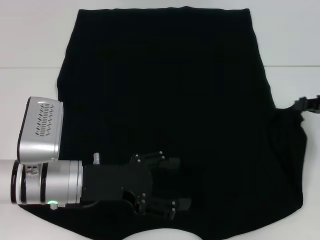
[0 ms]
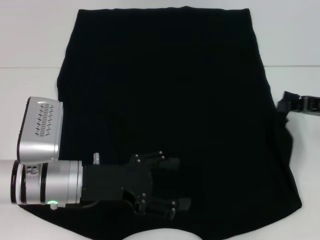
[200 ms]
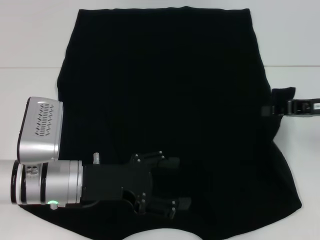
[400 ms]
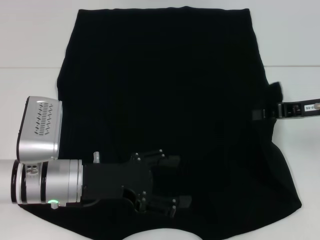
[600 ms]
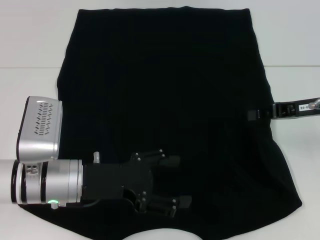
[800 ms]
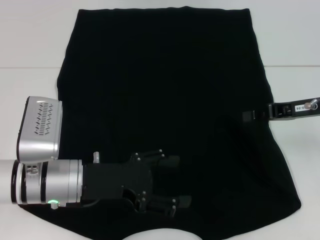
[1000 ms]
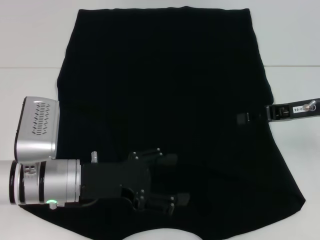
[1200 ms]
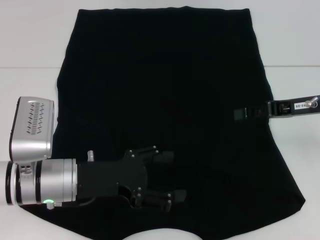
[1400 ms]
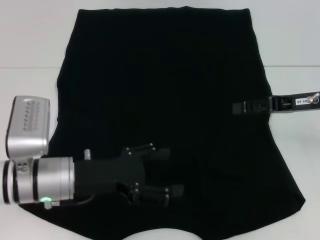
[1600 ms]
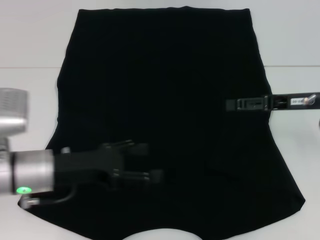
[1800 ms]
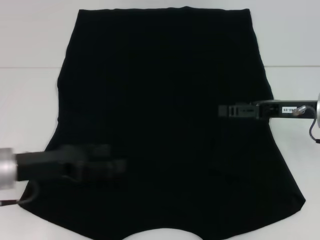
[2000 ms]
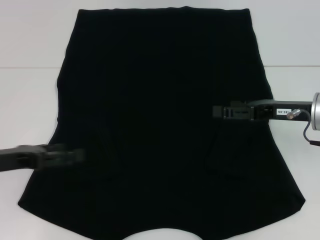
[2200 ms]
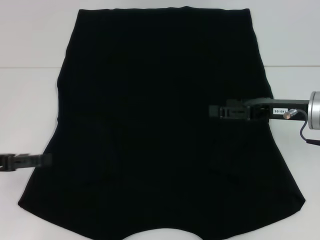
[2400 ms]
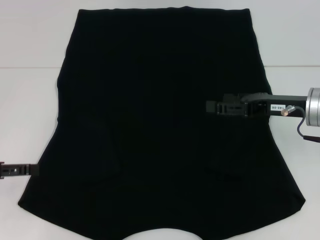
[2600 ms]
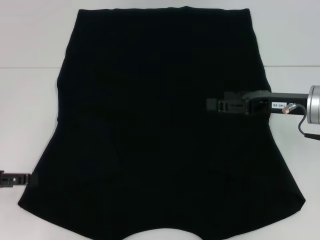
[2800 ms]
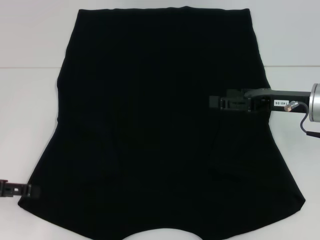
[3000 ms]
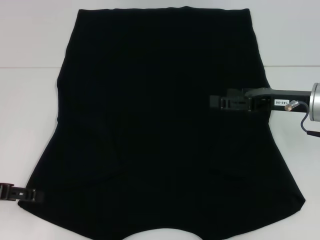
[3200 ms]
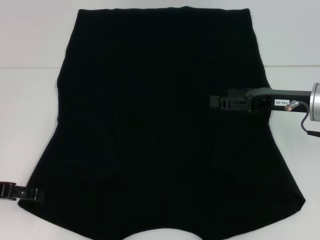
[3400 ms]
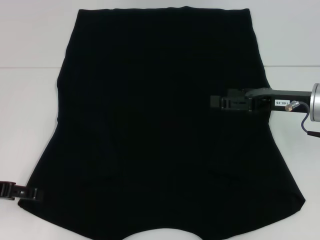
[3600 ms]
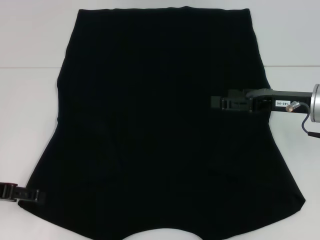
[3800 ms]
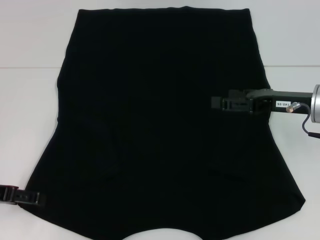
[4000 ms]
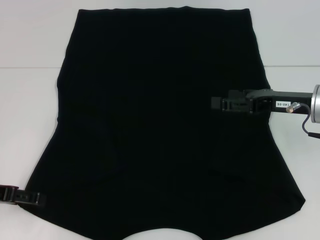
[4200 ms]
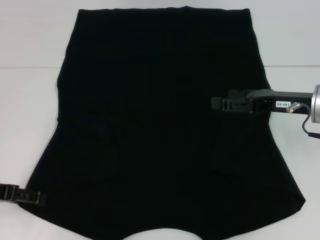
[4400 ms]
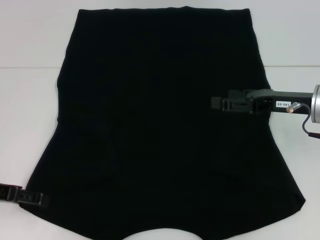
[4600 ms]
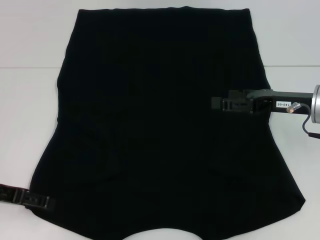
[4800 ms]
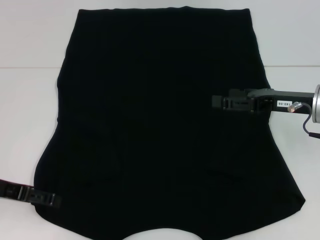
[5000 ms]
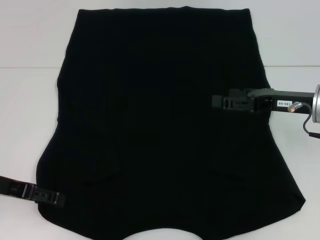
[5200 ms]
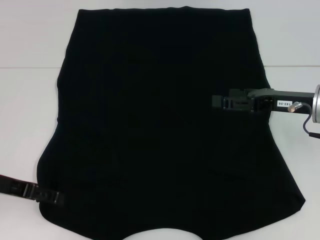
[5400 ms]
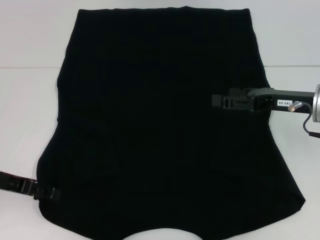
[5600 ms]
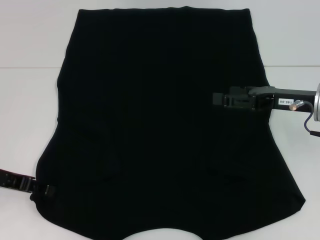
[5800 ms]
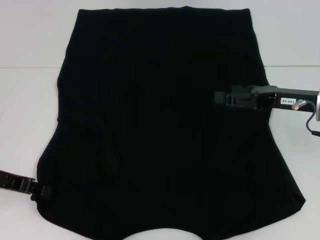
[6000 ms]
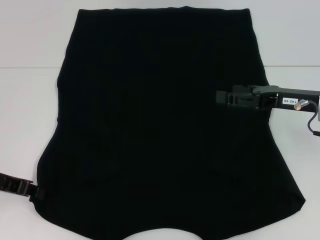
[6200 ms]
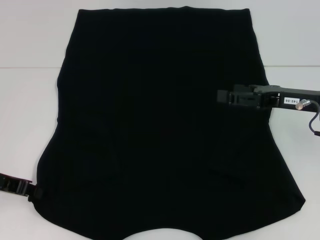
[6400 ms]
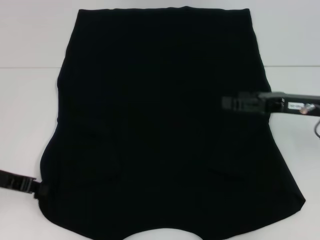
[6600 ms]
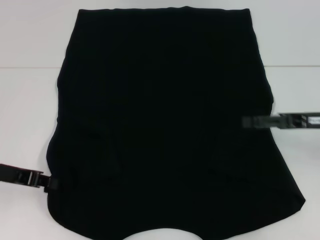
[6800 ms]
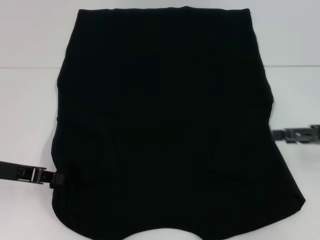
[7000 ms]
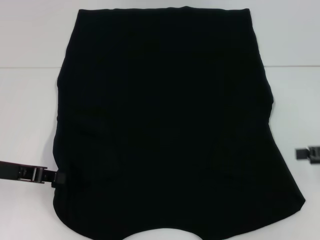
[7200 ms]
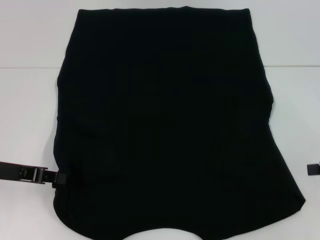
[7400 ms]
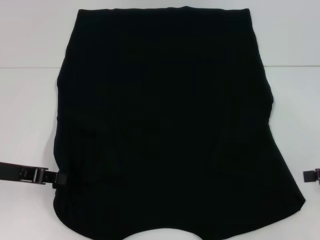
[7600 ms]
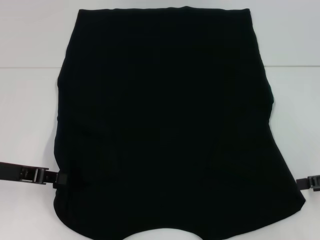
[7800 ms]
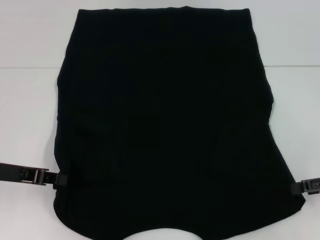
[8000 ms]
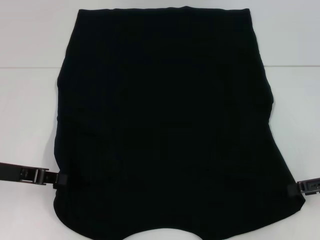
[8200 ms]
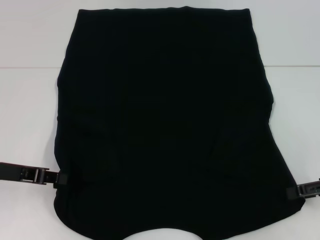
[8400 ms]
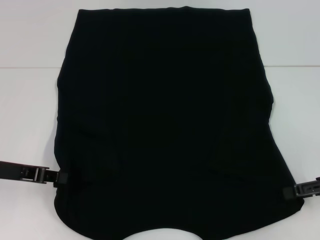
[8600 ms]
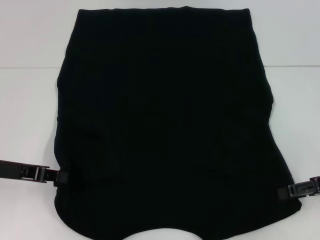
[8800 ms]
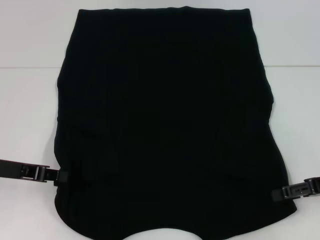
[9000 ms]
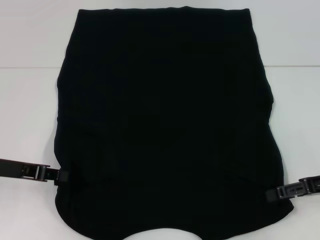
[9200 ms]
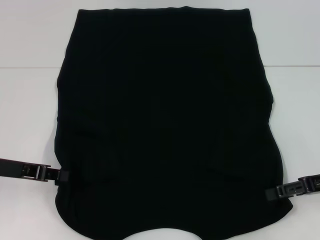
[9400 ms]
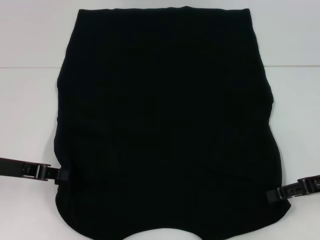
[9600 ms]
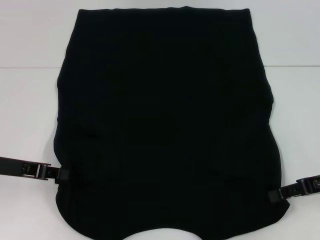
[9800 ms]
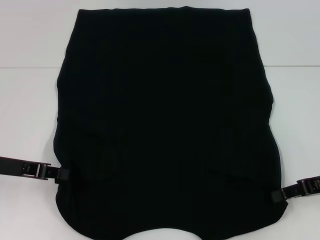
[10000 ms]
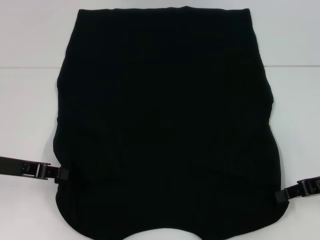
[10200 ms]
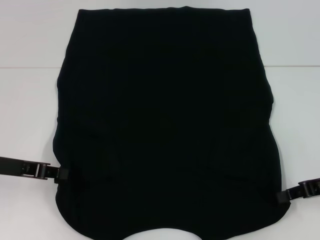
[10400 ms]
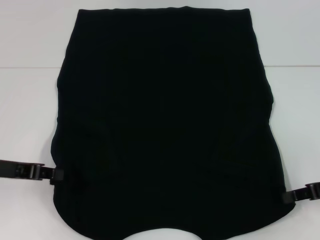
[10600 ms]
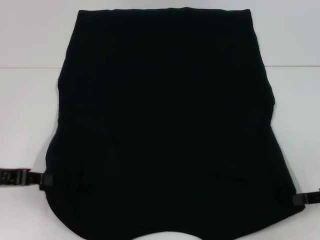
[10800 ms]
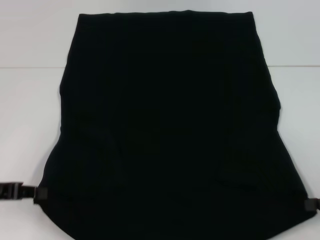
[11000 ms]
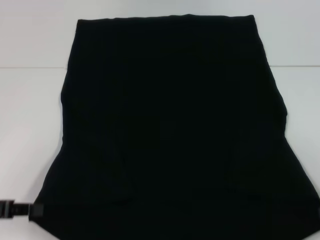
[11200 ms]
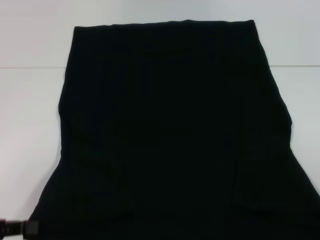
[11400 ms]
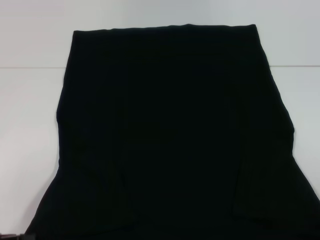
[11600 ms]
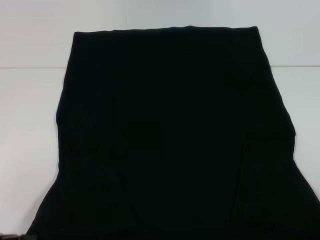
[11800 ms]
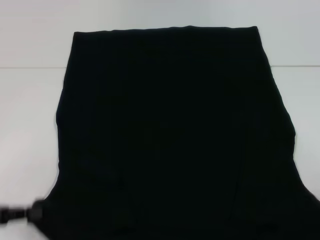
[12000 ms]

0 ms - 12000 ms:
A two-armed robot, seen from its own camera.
Step, 1800 ms - 6400 ms: Grab the bottom left corner with your left hand.
Step, 6600 ms - 10400 ms: Grab the bottom right corner with your right hand.
0 ms - 1600 ms: The right gripper goes about 10 cm to the left, and opens.
1600 ms - 3000 ms: The left gripper moves to the left, approximately 15 cm. Meanwhile the right gripper opens.
3000 ms - 4400 ms: The grippers move only a little.
4400 ms - 6000 ms: The left gripper closes up.
6000 ms - 7600 ms: The left gripper closes its fingers. The right gripper goes some 15 cm to the right and backward.
7600 ms - 9000 ms: The right gripper shifts about 5 cm to the left.
9000 ms - 10400 ms: The right gripper closes its fingers.
10400 ms - 12000 ms: The right gripper moves backward and to the right, approximately 15 cm; the left gripper goes some 10 cm backward.

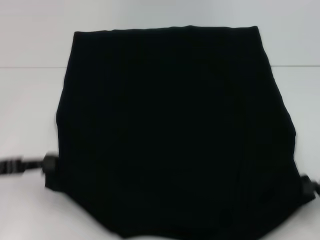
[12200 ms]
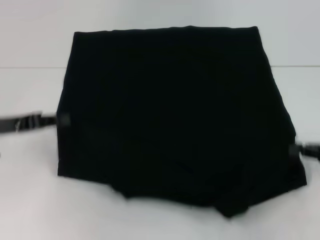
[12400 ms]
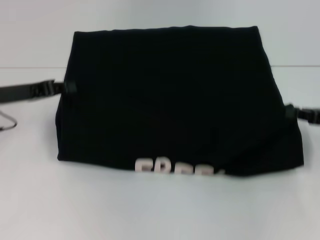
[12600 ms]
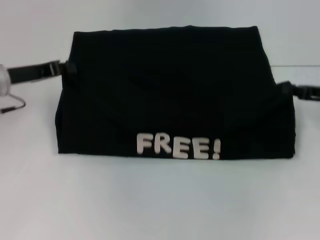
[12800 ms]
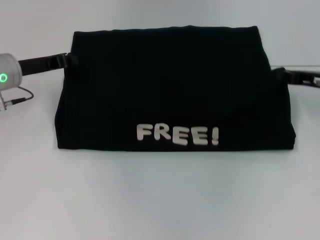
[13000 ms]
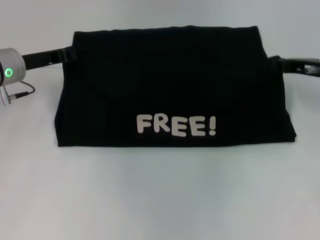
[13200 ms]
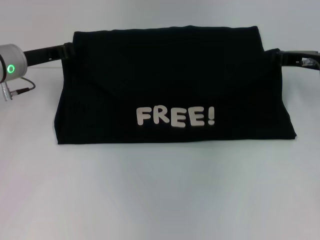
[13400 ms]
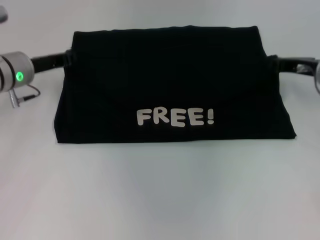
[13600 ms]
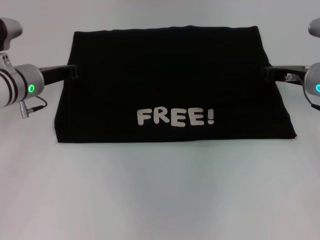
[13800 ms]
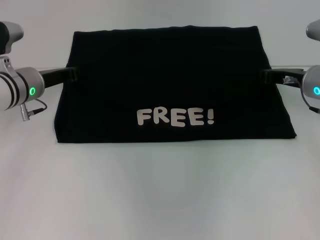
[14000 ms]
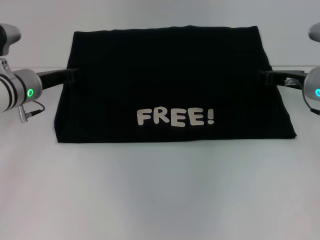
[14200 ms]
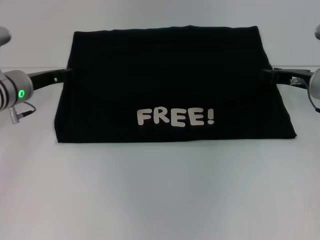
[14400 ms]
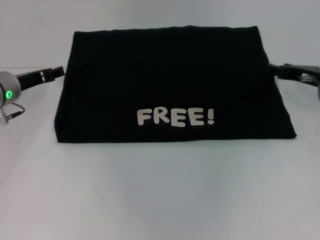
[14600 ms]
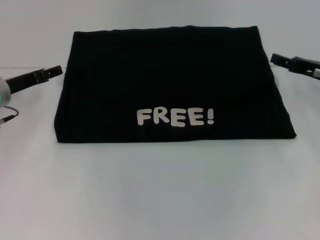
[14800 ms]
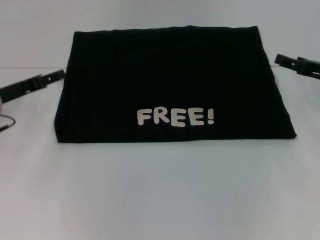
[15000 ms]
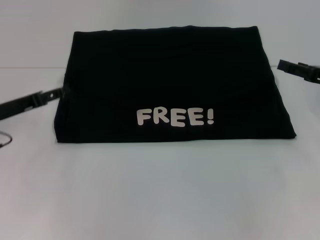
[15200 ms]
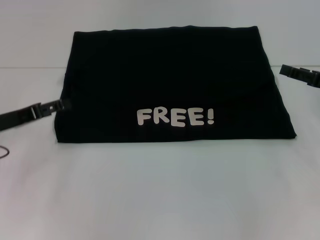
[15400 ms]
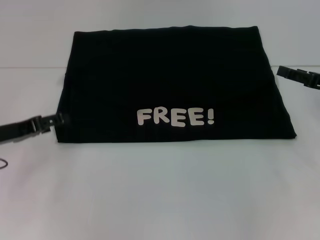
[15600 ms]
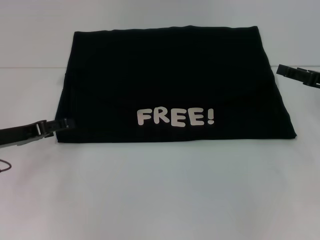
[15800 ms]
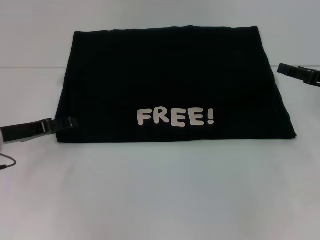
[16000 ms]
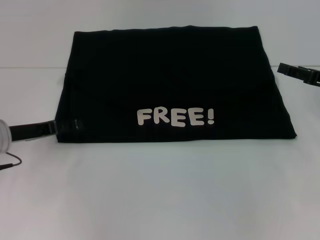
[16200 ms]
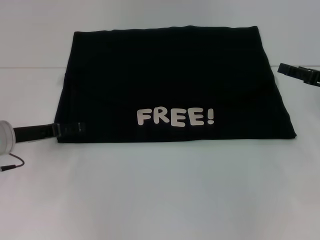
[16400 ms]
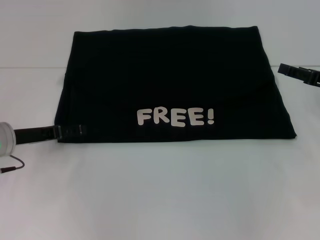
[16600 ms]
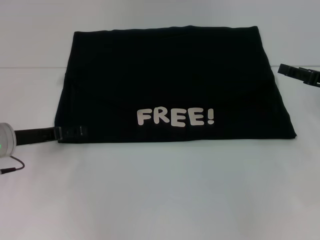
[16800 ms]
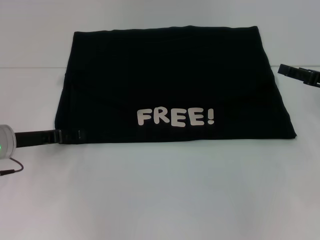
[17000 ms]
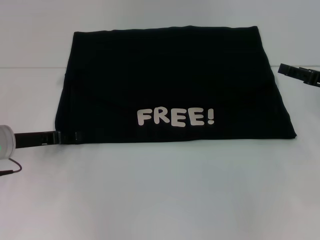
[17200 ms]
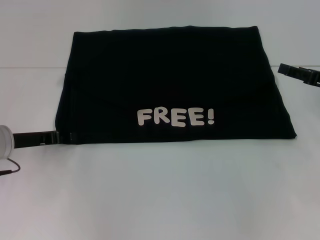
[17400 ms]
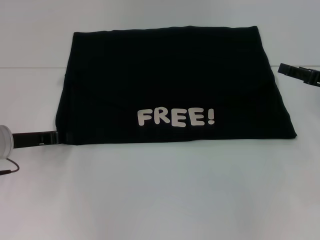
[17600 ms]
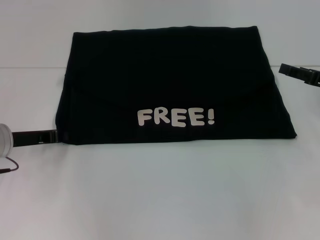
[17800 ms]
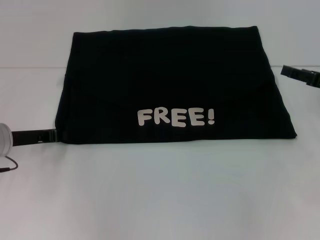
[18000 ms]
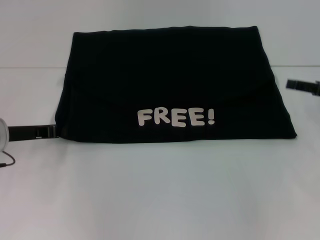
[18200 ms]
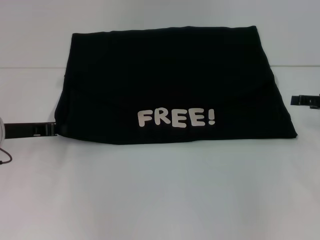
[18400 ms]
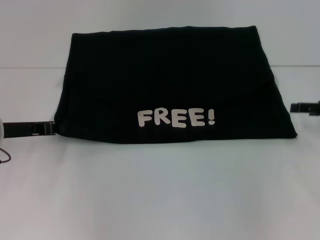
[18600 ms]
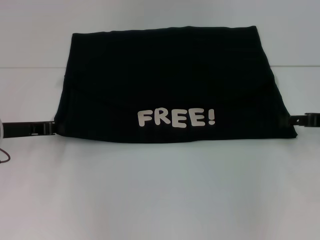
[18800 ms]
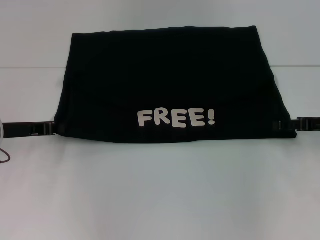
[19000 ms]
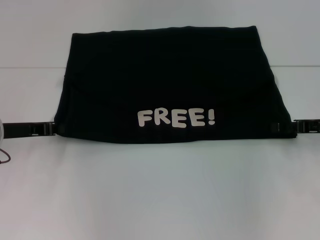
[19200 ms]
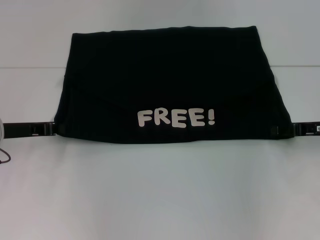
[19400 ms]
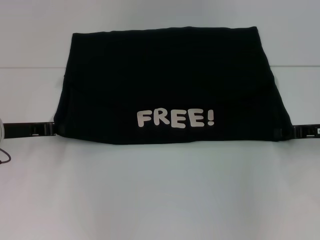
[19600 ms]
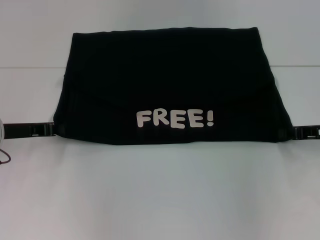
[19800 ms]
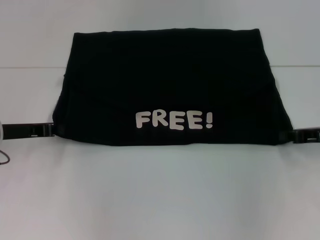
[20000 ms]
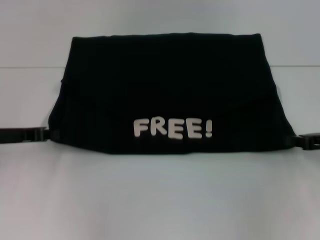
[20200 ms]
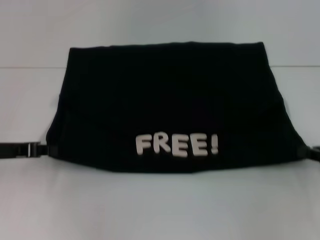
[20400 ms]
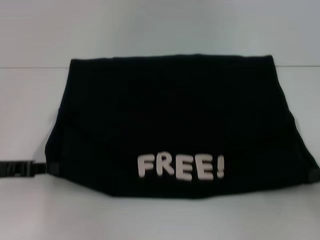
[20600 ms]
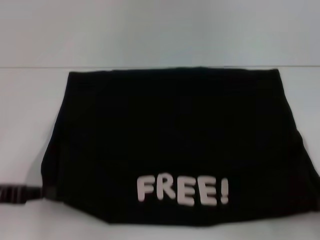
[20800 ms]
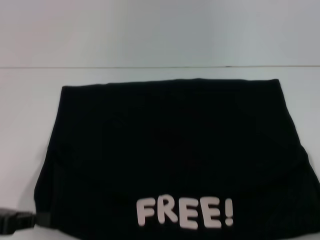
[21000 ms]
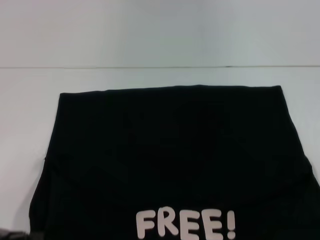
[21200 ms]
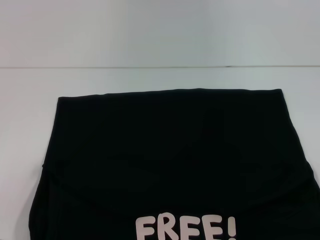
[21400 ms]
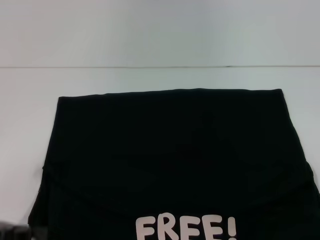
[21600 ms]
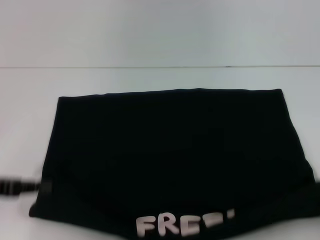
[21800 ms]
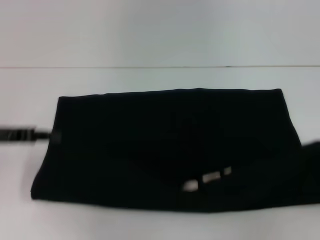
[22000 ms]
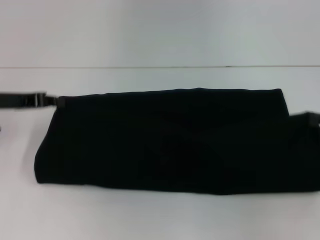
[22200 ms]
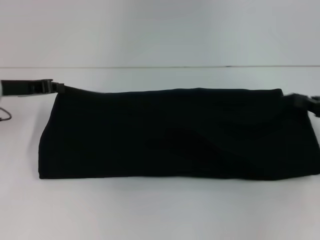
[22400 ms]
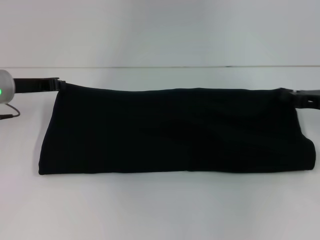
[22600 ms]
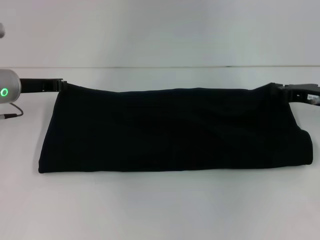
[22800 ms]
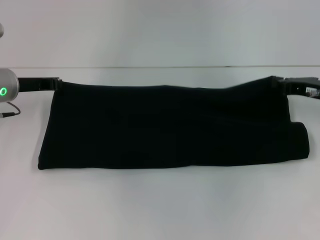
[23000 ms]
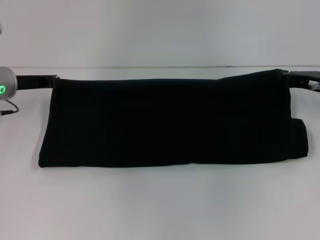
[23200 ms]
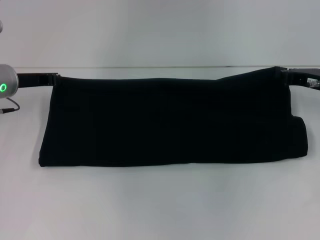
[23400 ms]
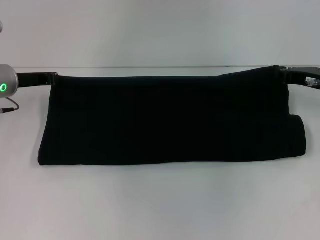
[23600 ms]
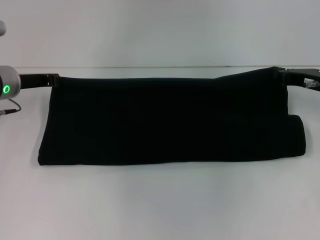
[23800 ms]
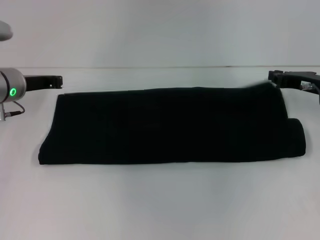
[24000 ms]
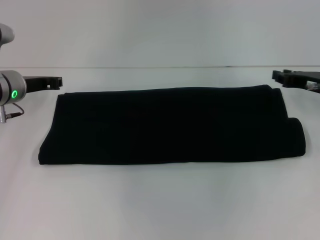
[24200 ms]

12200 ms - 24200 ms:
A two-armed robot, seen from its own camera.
Step, 12200 ms - 14600 ms: Fold the clothes with your left hand.
Step, 12200 ms - 14600 ms: Fold the clothes with your right hand.
Step, 14800 ms - 21200 ms: Pull the clothes with your left hand.
Step, 14800 ms - 21200 ms: Pull the clothes with your right hand.
12200 ms - 13800 ms: The right gripper heads forward and to the left, covering approximately 20 cm, while the left gripper moves forward and to the right, roughly 20 cm.
13800 ms - 15200 ms: The left gripper heads backward and to the left, covering some 10 cm, and opens up. The right gripper travels to the right and backward by some 10 cm, and opens.
15200 ms - 16600 ms: There are only small adjustments of the grippers.
16600 ms - 18200 ms: The left gripper closes its fingers.
18200 ms - 19800 ms: The right gripper closes.
19800 ms - 21200 ms: The two grippers go about 20 cm backward.
21200 ms - 22600 ms: Both grippers travel together forward, approximately 20 cm.
22600 ms - 24200 ms: The grippers stay close to where they were, moving slightly.
